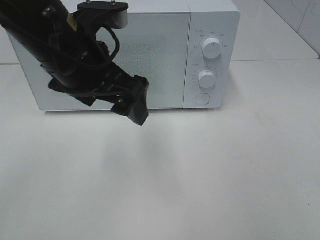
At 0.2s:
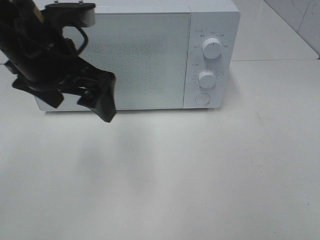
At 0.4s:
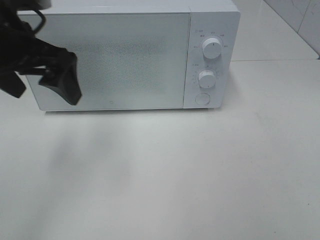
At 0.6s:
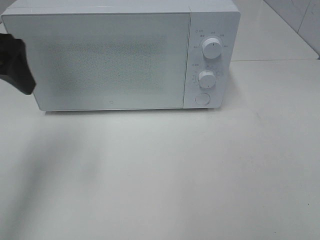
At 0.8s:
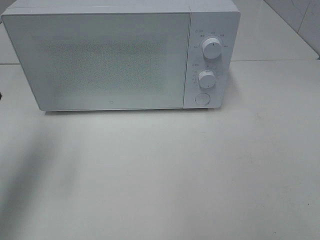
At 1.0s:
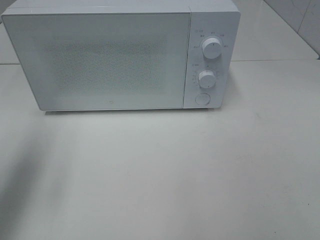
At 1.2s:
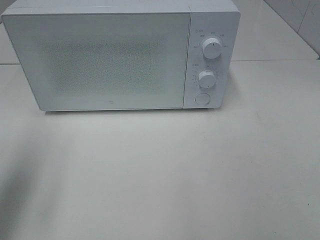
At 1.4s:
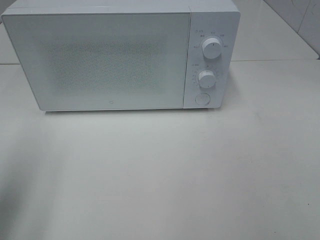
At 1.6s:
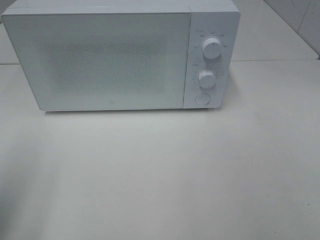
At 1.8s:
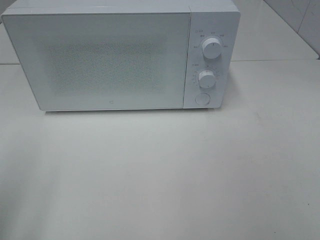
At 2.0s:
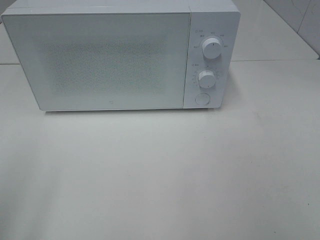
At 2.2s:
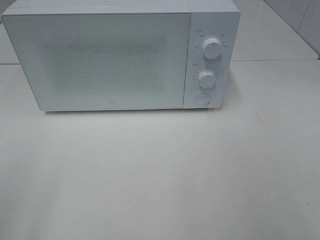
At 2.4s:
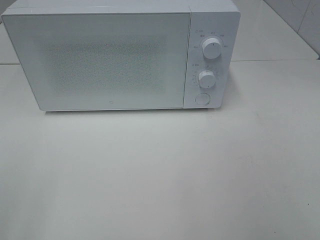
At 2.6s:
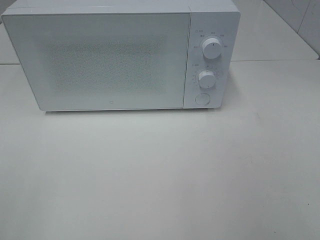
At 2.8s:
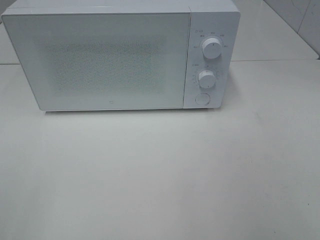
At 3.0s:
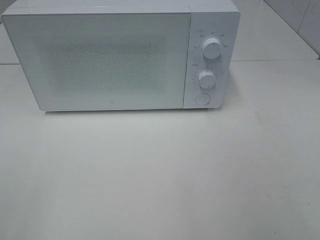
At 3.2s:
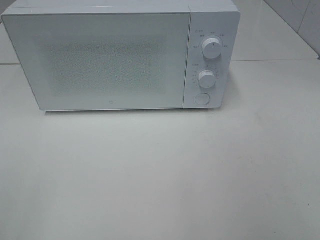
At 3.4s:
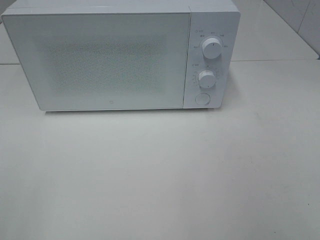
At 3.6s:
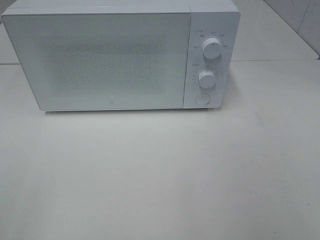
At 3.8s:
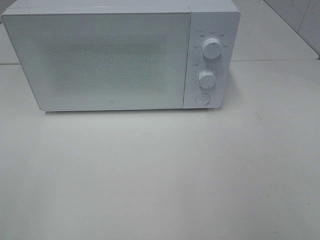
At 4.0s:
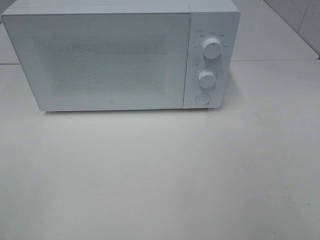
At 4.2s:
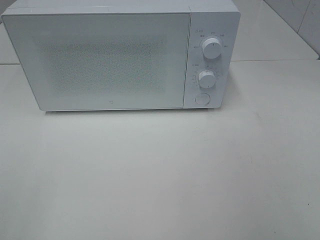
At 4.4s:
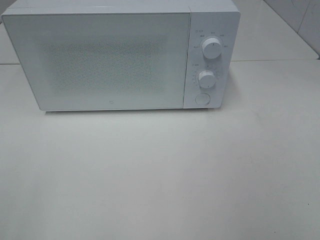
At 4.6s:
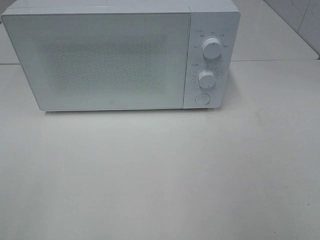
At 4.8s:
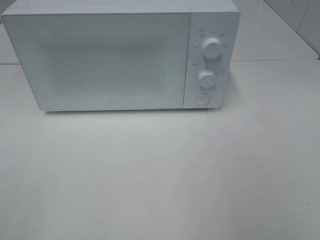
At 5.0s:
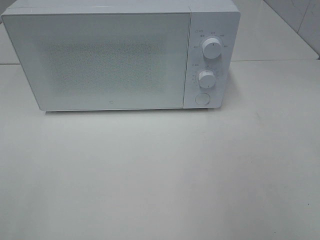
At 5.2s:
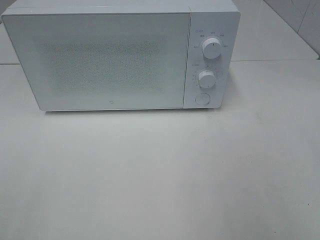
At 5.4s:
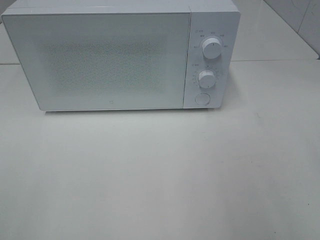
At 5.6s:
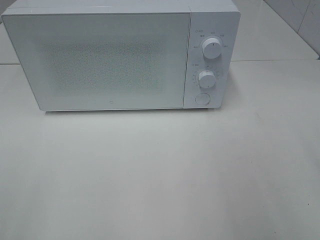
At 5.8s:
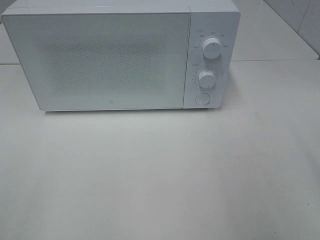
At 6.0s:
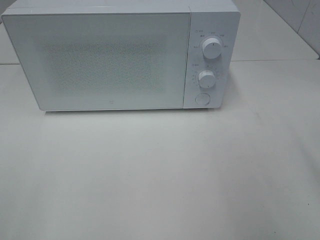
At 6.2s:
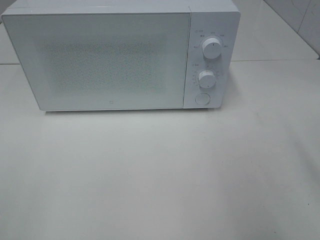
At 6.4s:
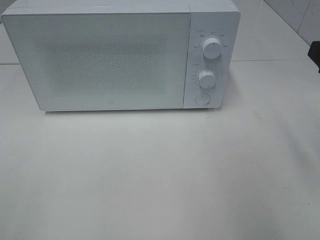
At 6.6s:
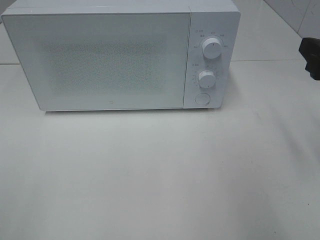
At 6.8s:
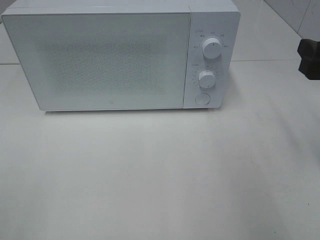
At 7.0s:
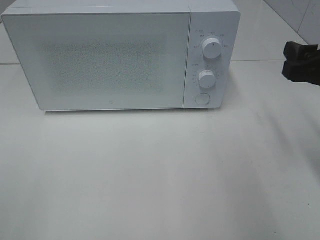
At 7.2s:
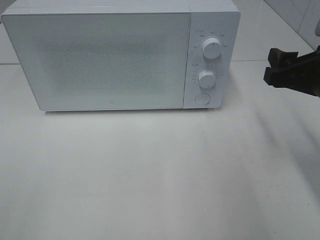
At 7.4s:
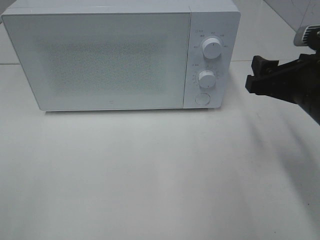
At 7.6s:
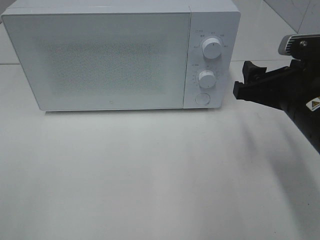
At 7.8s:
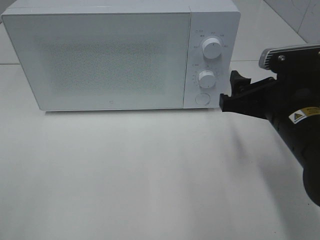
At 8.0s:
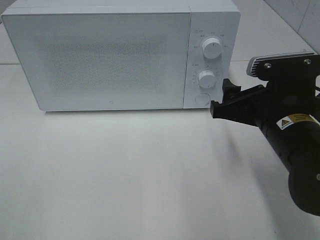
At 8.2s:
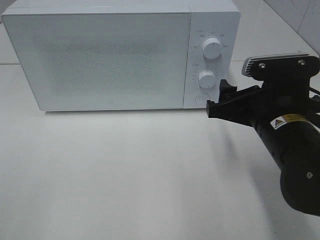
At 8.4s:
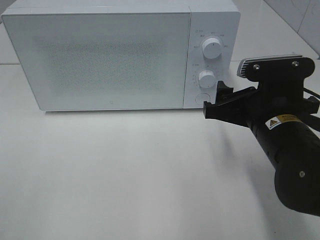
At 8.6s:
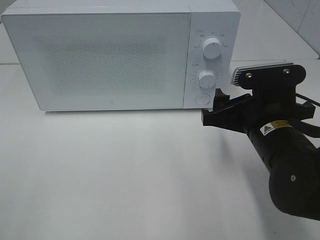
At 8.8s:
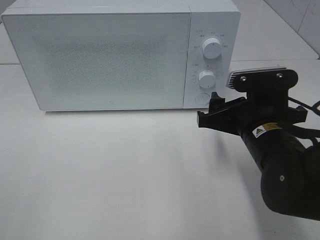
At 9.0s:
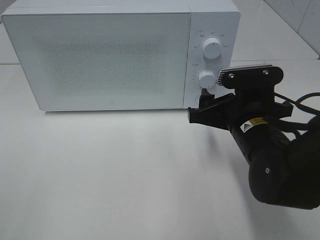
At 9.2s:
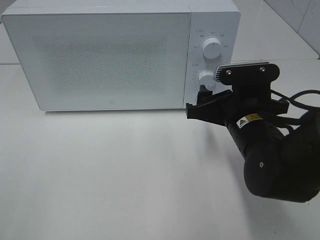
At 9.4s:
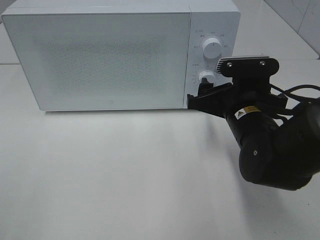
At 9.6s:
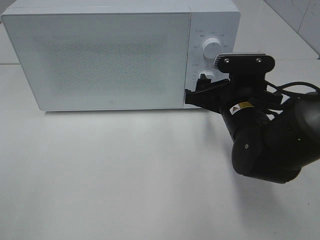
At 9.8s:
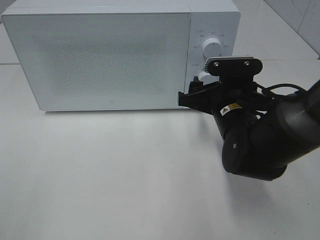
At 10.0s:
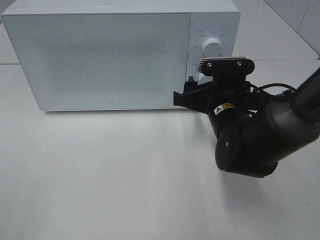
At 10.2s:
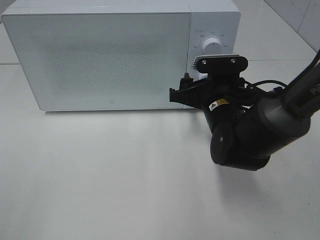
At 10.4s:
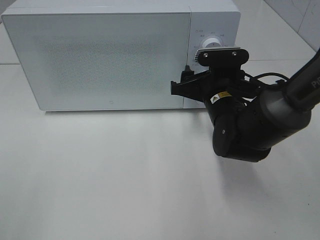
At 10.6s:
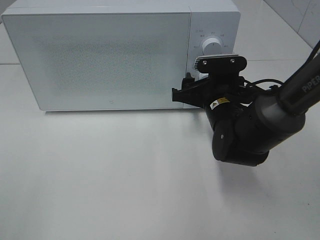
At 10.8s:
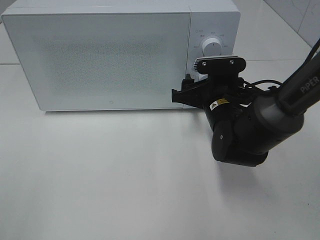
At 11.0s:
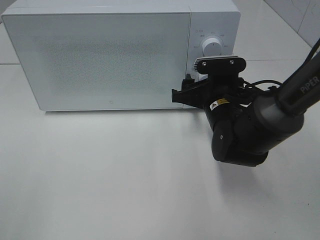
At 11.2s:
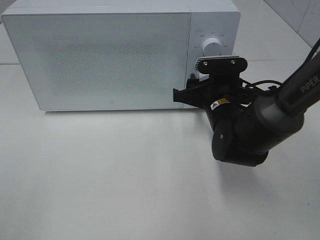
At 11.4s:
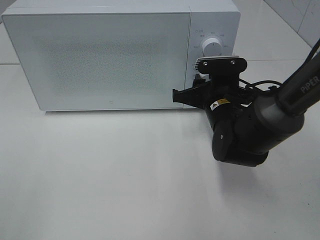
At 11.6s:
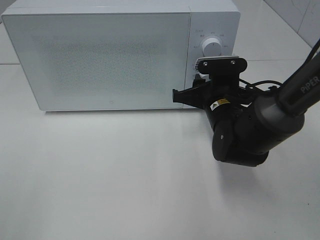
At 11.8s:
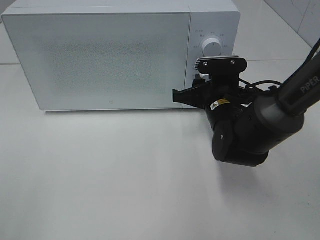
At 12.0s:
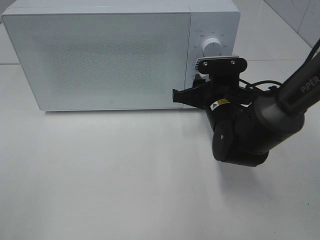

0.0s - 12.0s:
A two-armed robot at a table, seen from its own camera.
Task of the whole recording: Heat the burger.
0.0s - 1.6s: The left gripper travels to the left and backward by approximately 25 cm.
1.6s - 3.0s: The left gripper shifts some 10 cm backward.
6.0s - 7.6s: The right gripper goes about 15 cm to the left, downward and forward.
7.6s - 9.0s: The right gripper heads to the left, covering about 5 cm.
9.0s - 10.4s: The right gripper travels forward by some 10 cm.
10.4s - 12.0s: The right gripper closes.

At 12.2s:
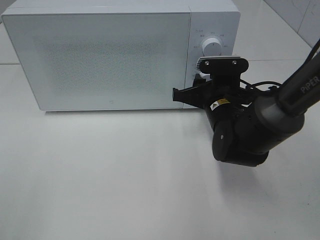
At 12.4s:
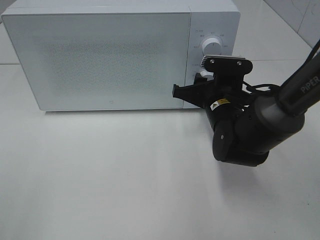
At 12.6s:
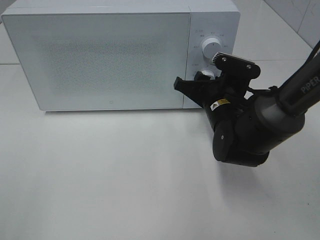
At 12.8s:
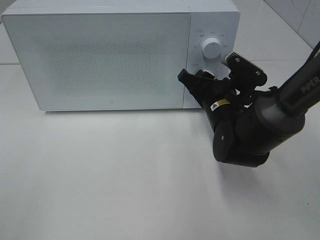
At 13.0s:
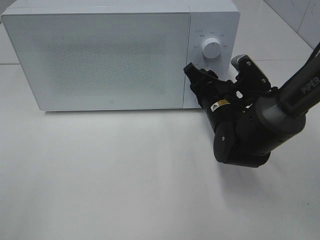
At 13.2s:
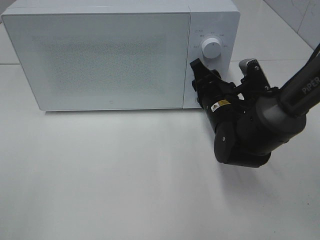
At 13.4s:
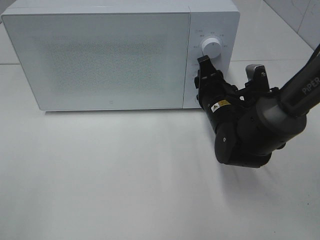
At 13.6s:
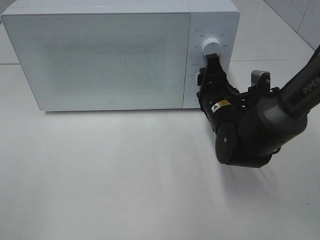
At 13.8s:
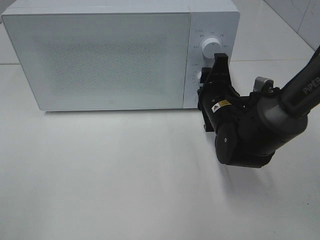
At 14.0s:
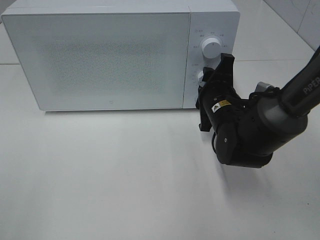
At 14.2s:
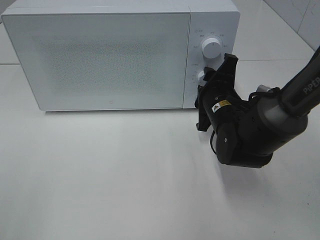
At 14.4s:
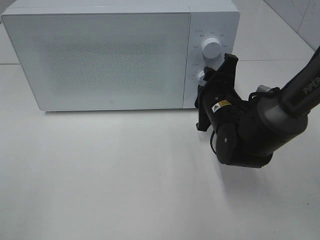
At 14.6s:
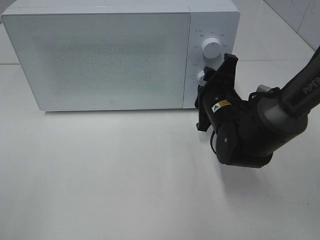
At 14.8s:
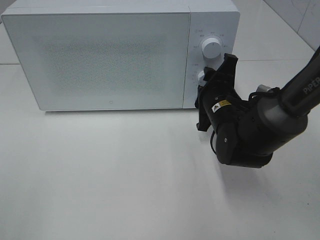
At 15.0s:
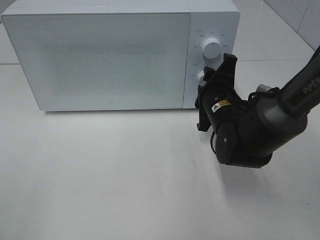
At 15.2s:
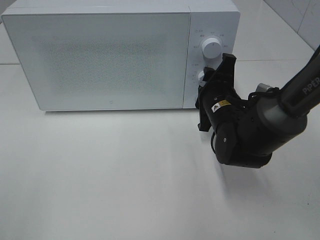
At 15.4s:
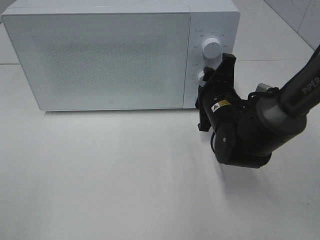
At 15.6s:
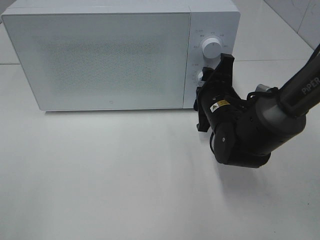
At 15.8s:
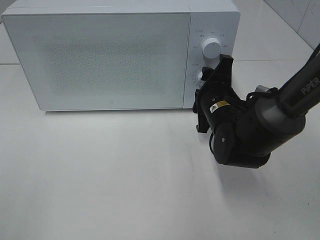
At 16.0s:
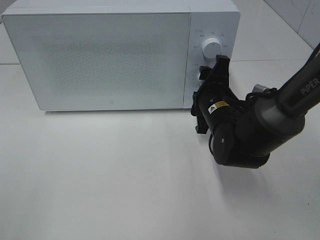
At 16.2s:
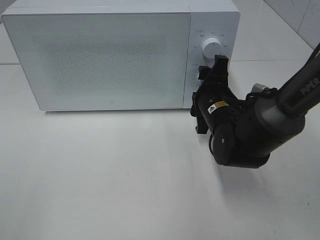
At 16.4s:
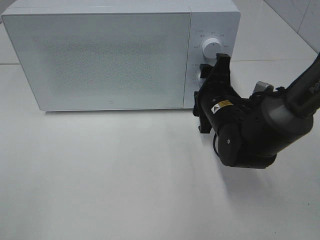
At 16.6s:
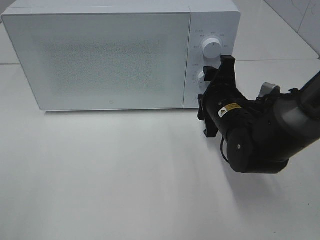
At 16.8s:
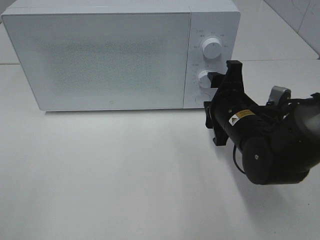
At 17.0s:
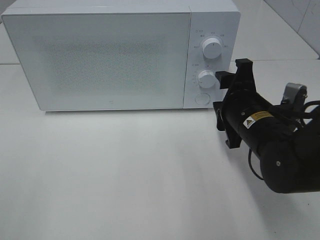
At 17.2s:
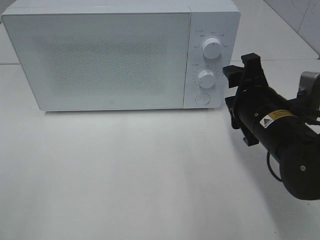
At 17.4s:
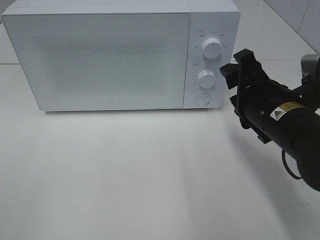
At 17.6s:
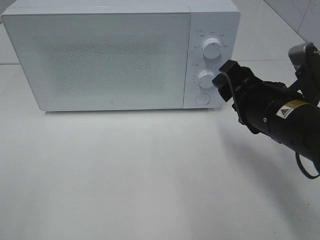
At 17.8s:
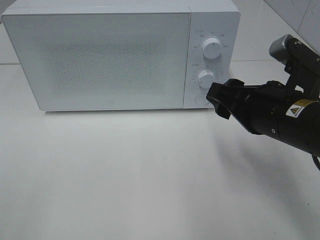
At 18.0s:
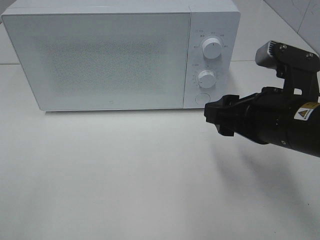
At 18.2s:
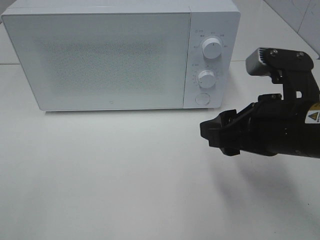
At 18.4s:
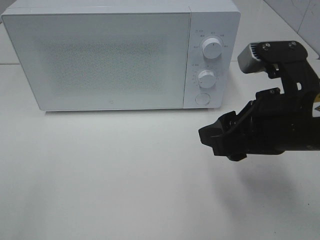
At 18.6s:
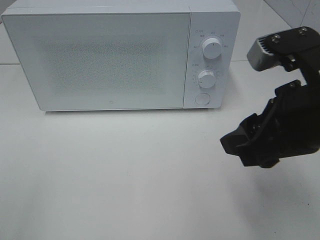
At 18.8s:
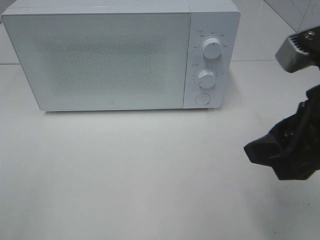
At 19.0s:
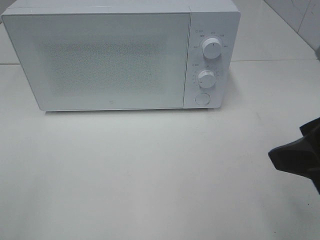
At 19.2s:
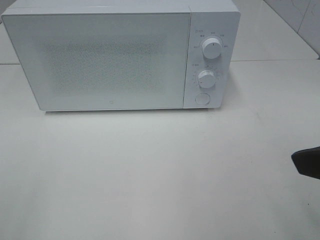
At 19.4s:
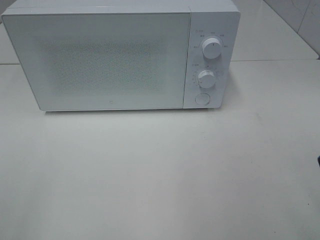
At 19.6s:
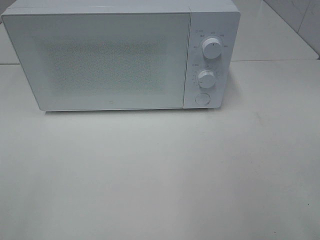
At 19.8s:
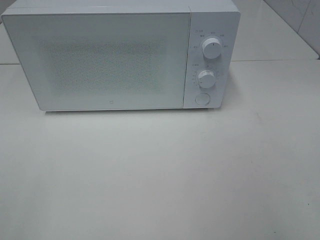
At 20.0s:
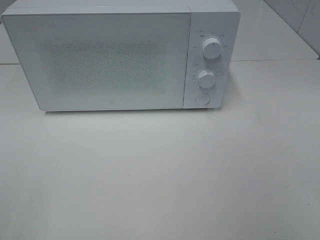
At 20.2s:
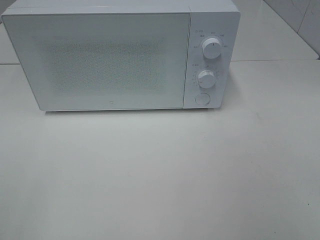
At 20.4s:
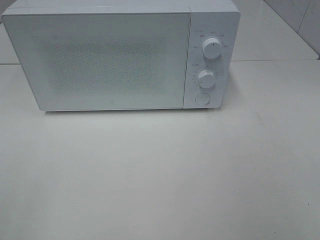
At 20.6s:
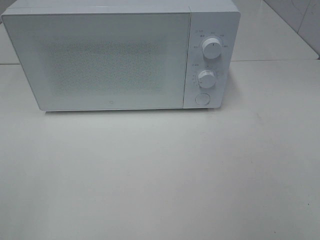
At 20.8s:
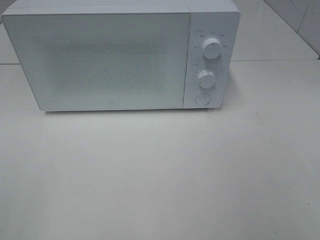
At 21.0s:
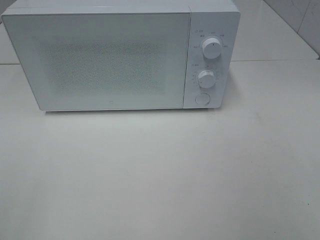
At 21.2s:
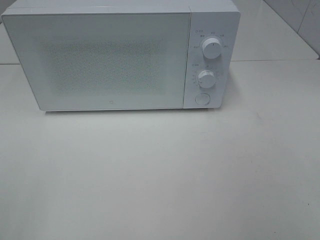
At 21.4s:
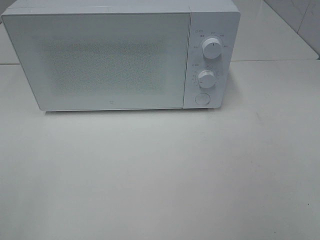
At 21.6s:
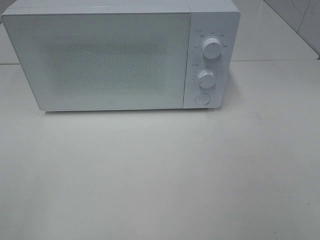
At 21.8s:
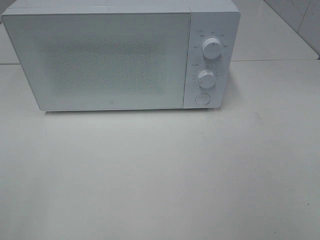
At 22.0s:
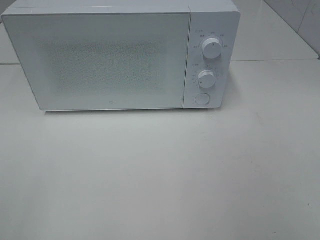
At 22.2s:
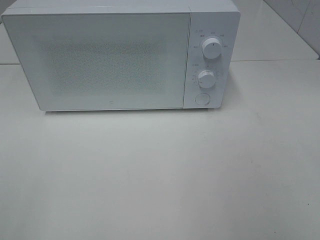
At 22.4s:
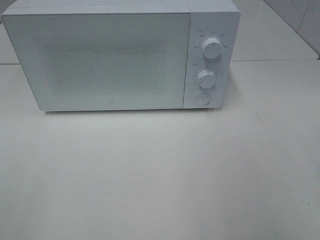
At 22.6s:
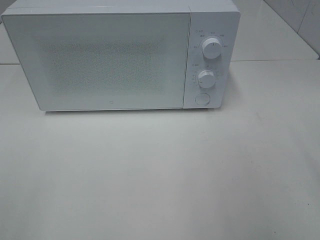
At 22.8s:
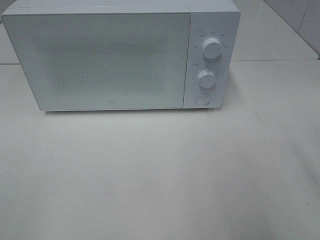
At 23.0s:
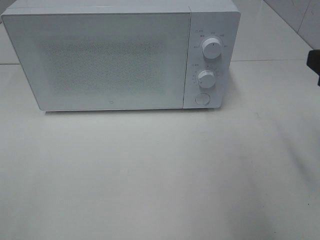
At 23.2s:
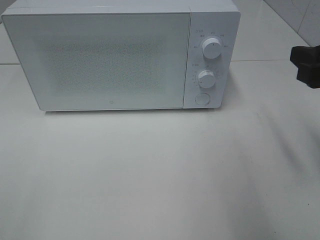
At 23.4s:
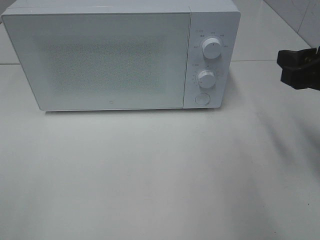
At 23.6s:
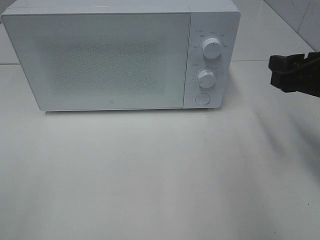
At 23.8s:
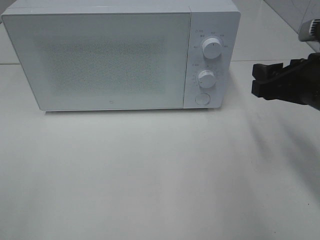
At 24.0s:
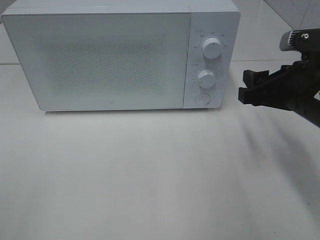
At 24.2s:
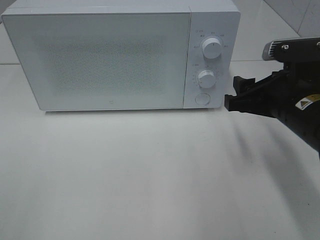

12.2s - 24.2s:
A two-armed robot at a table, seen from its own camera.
Task of the whole recording: Heat the burger.
Step, 12.2s - 16.4s: Right hand: twist timer button.
13.8s - 16.6s: There are only small adjustments of the grippers.
16.6s - 18.2s: The right gripper moves backward and upward, roughly 15 cm.
18.2s - 19.8s: The right gripper shifts approximately 20 cm backward, to the right and upward.
22.6s - 24.2s: The right gripper heads downward, forward and to the left, covering some 20 cm.
